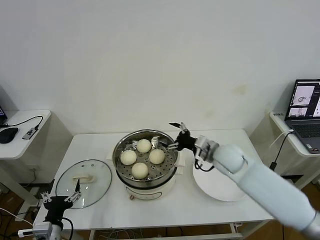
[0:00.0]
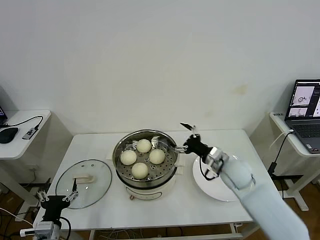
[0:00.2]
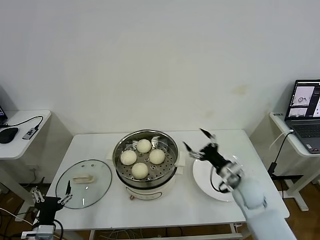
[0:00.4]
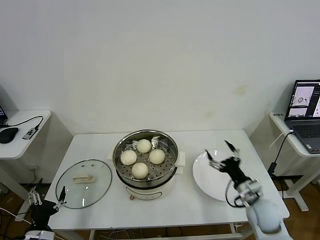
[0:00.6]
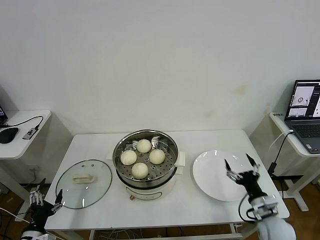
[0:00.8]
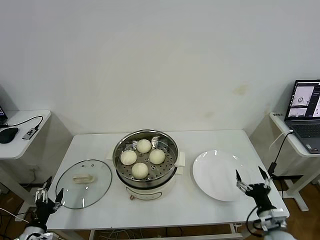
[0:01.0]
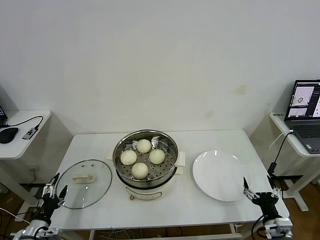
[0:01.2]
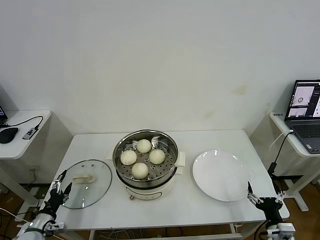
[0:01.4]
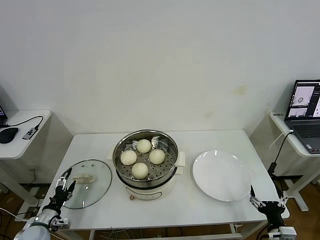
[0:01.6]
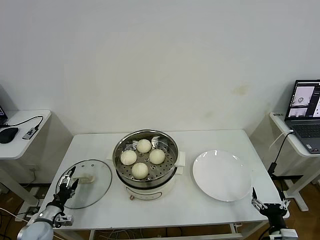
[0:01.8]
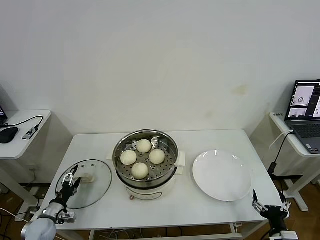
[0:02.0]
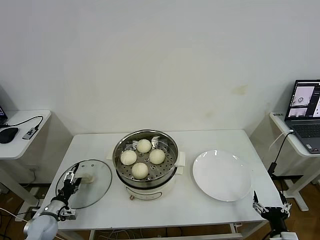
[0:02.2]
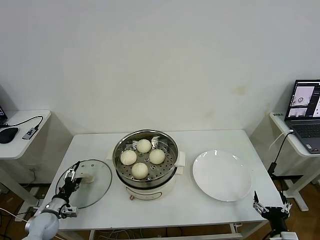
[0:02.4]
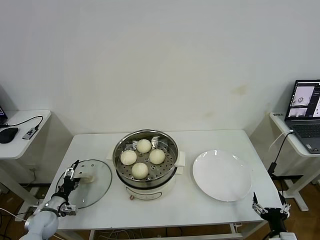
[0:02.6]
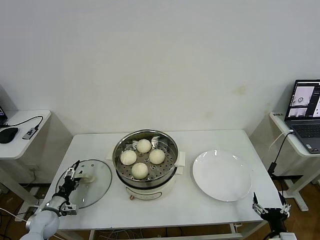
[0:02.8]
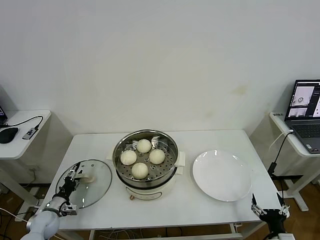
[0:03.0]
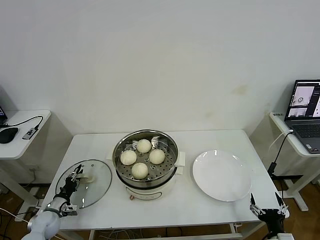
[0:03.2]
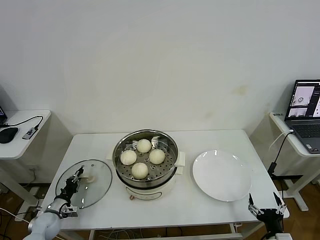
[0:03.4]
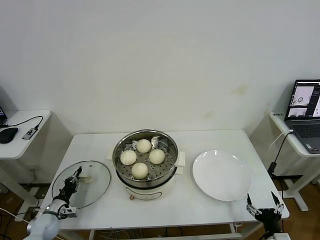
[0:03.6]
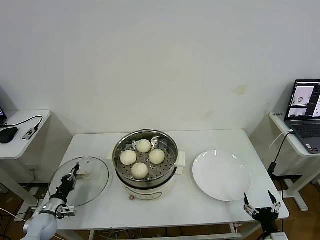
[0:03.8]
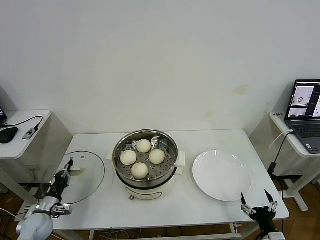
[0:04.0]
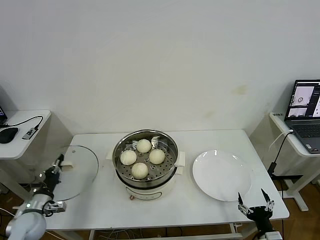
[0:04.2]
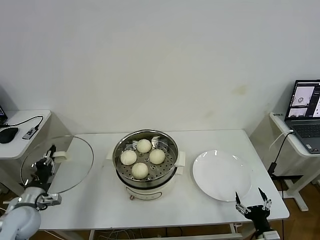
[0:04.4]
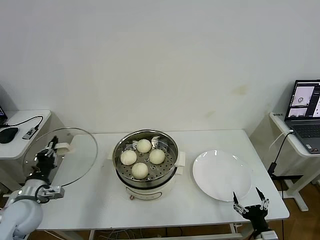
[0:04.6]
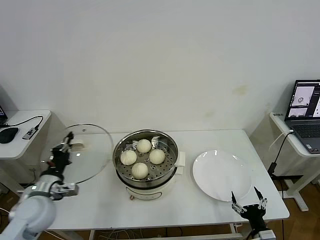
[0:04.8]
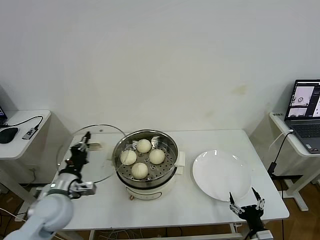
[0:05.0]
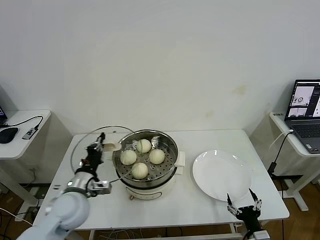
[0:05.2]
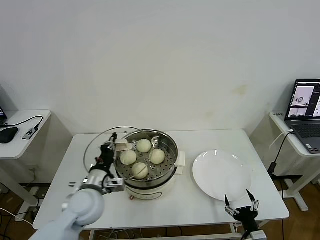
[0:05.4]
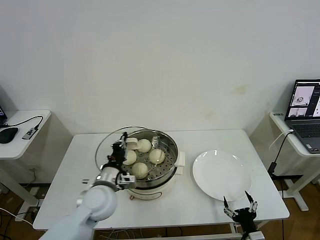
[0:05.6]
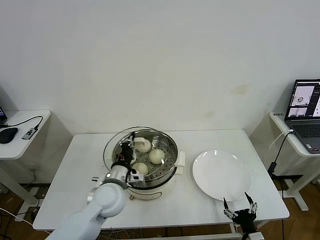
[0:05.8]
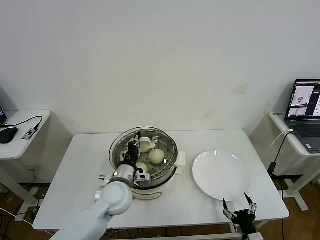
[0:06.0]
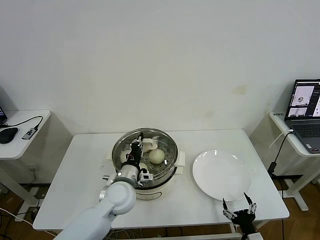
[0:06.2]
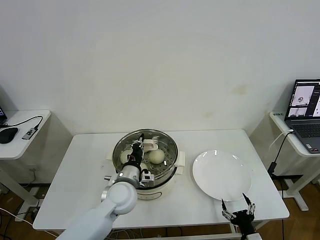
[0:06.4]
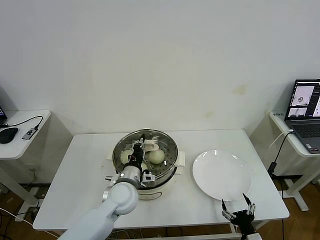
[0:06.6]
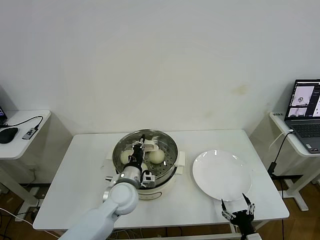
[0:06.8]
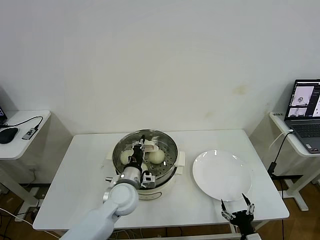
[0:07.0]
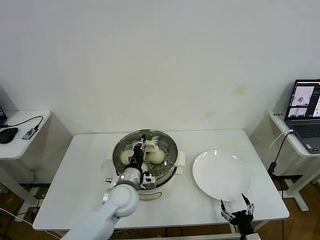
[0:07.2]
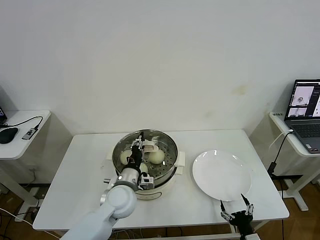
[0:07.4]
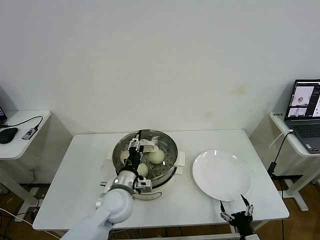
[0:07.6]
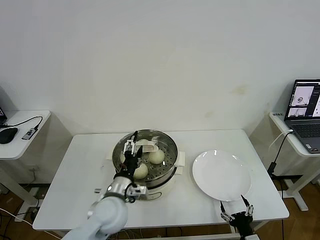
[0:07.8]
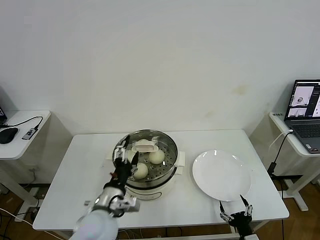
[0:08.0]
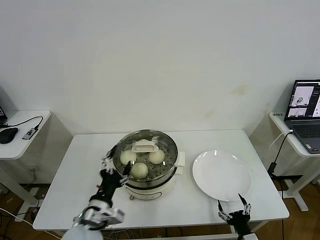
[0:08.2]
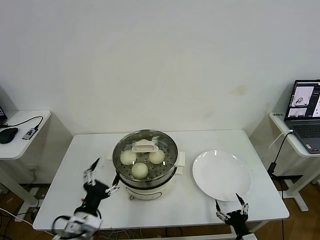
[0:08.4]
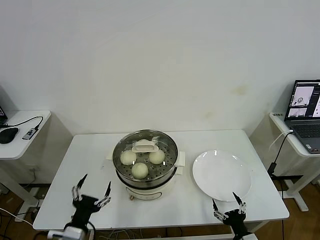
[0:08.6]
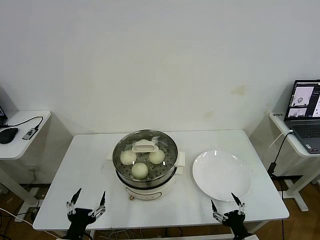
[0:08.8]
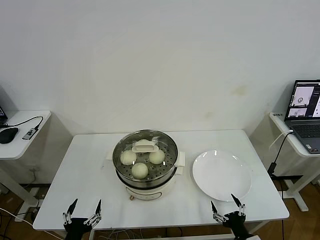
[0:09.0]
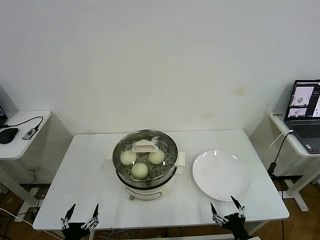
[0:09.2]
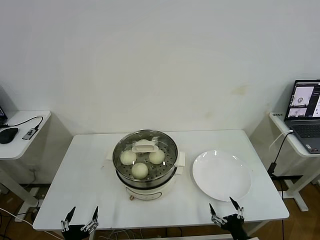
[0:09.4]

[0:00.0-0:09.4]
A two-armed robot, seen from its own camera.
Task of the whole recording: take steamed baozi put them in steamer then cover it.
Step, 0:00.0 to 0:03.6: Grasp the pot lid with left gripper.
Step, 0:03.8 to 0:08.0: Place the pot lid on the steamer with left gripper.
0:00.0 to 0:01.6: The left gripper moves to the left, downward and forward, roughly 15 cm; the right gripper moves backward, downward and to the right, some 35 cm.
0:01.6 to 0:03.2: The left gripper goes about 5 cm forward, and closes up.
0:03.2 to 0:04.8: The left gripper shifts about 20 cm upward, and closes.
0:04.8 to 0:06.2: The left gripper moves to the right, about 25 cm.
0:06.2 to 0:07.8: The left gripper opens up.
0:07.8 to 0:09.4: The left gripper moves backward, to the left and downward, some 30 cm.
